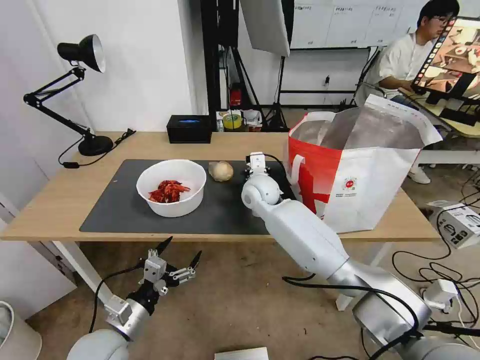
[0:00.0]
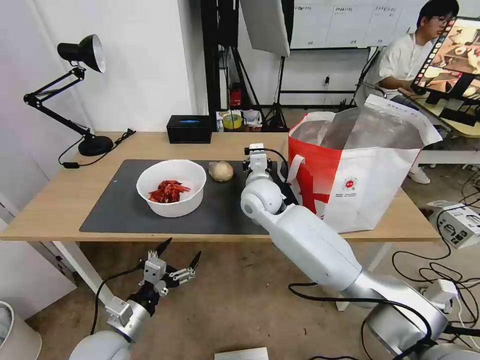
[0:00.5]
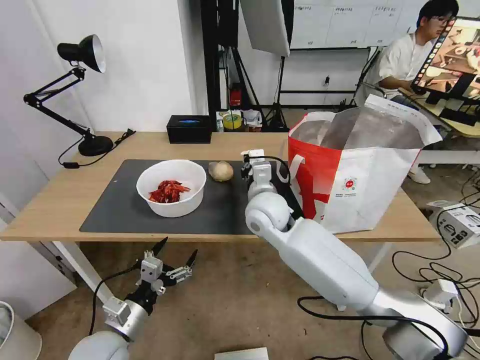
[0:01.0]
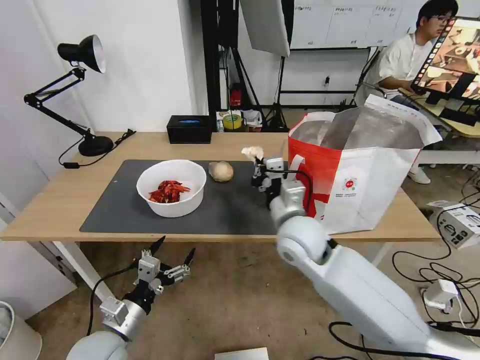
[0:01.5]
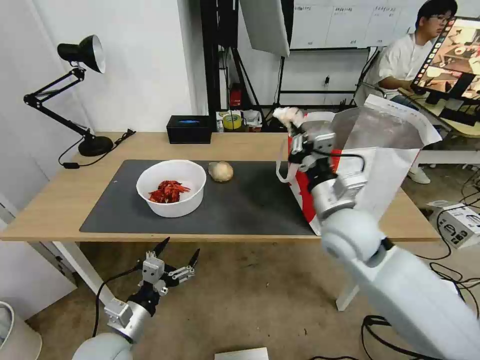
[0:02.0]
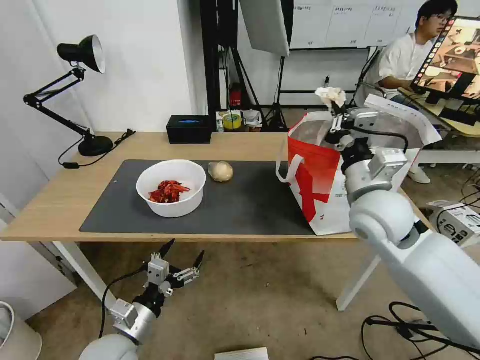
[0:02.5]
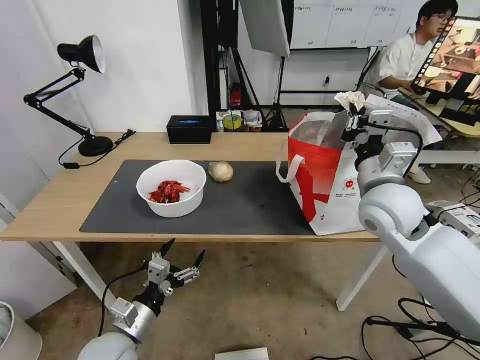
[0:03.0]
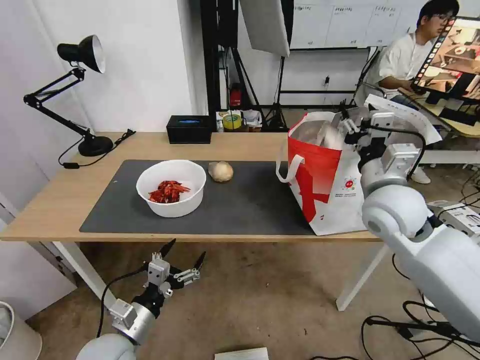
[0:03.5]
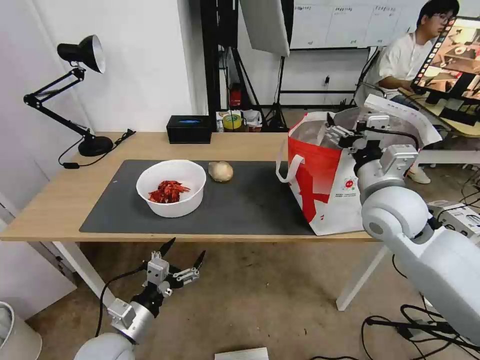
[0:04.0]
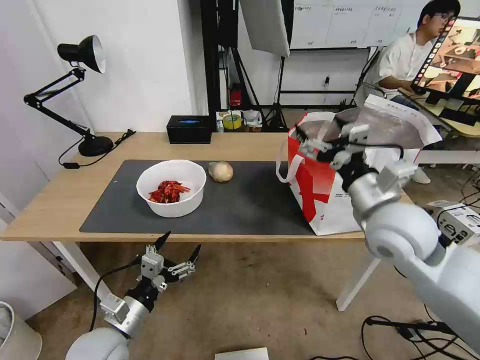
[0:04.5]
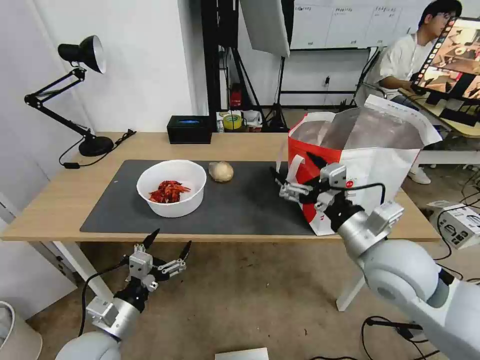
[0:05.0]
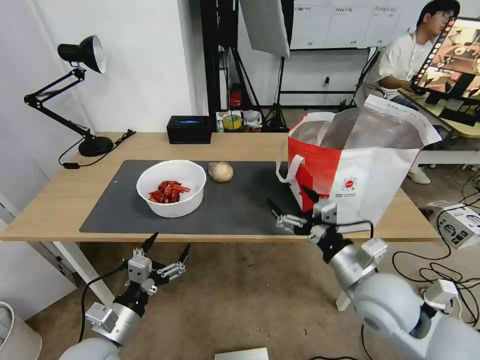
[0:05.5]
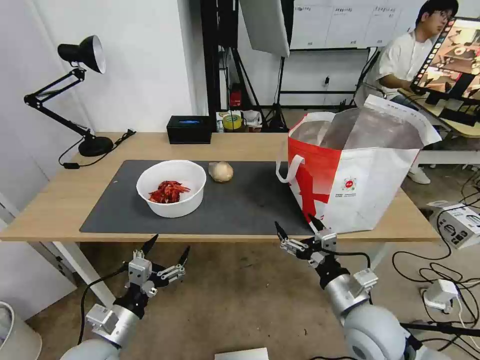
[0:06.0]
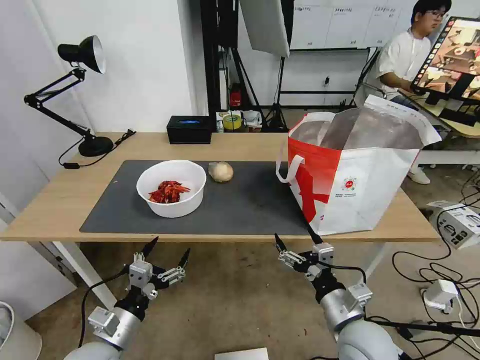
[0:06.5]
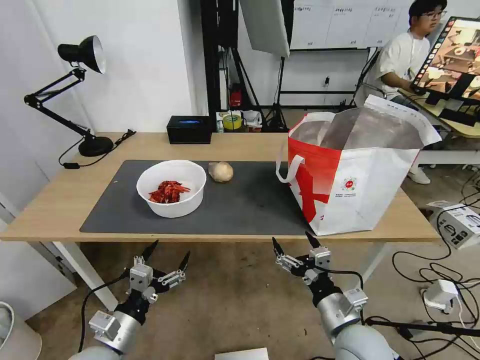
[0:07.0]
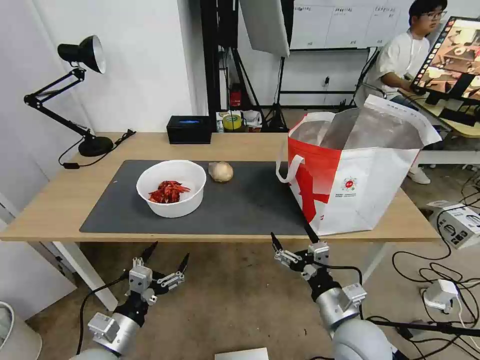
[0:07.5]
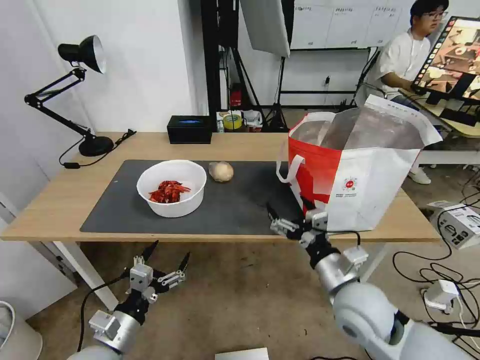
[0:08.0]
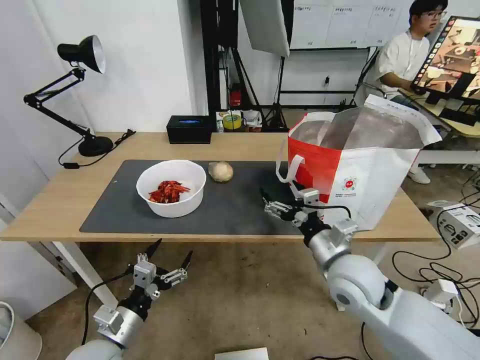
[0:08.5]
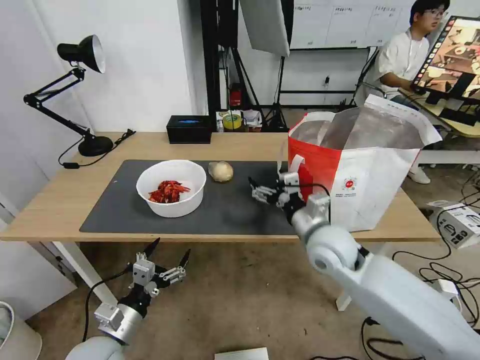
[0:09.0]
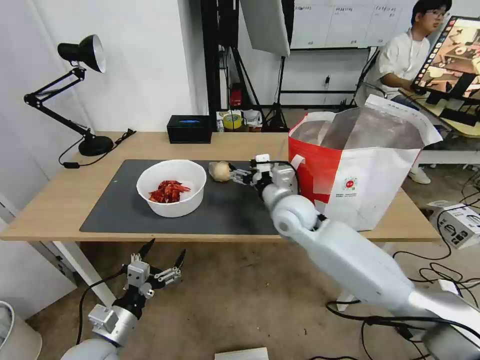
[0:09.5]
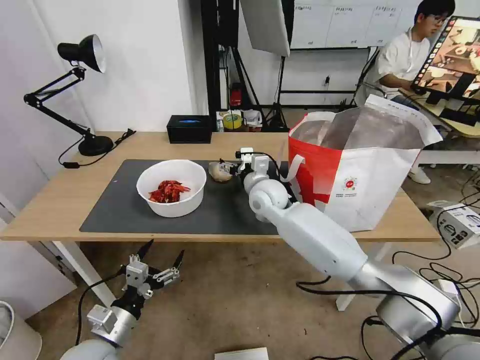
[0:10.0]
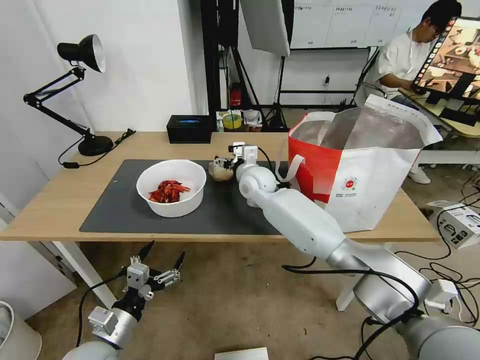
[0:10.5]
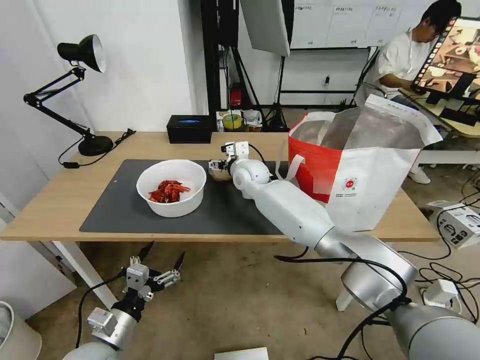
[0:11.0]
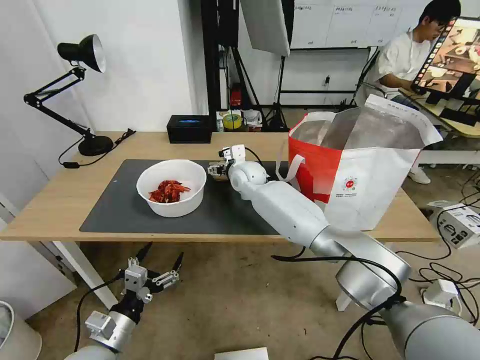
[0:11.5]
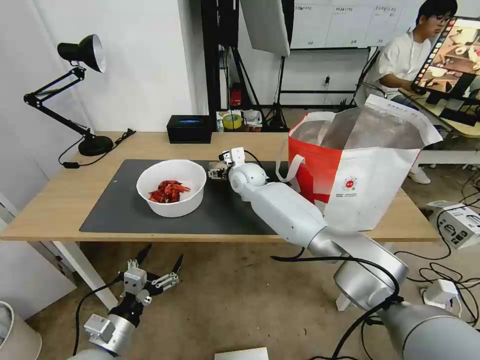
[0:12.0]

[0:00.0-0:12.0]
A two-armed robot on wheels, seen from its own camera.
Task of the whole recording: Pick up the trash from the table and place it into the takeout bag.
0:00.0 to 0:02.0: The right gripper is displaced backward and to the right by approximately 20 cm.
0:02.0 to 0:04.0: The right gripper is displaced to the right by about 10 cm, and opens up.
0:04.0 to 0:06.0: The right gripper travels downward and backward by some 25 cm.
0:06.0 to 0:08.0: The grippers stay close to where they were, moving slightly.
0:08.0 to 0:10.0: The right gripper goes some 30 cm forward and to the left.
0:10.0 to 0:12.0: The right gripper is displaced forward by about 10 cm.

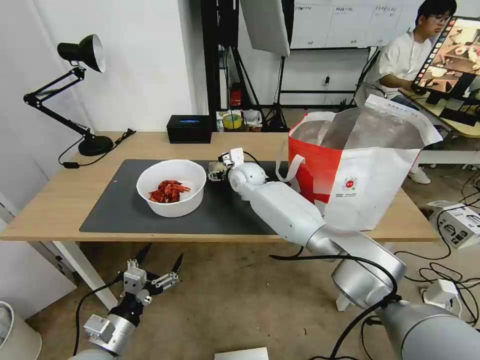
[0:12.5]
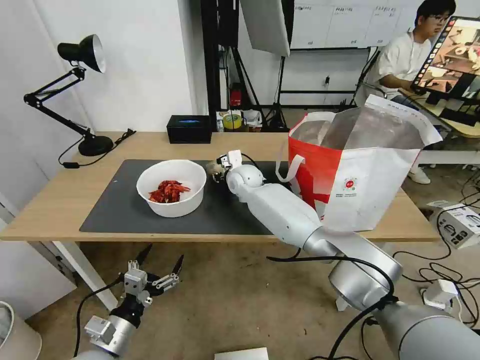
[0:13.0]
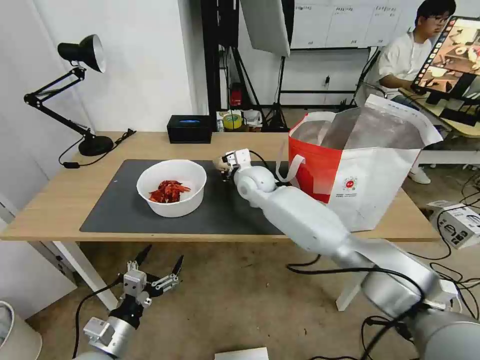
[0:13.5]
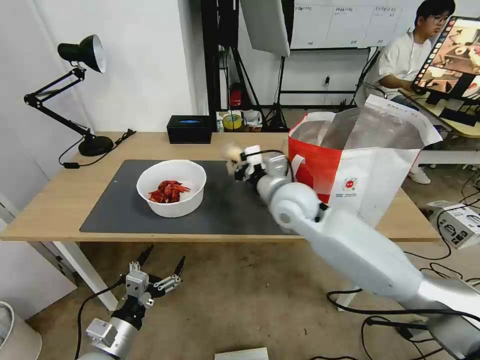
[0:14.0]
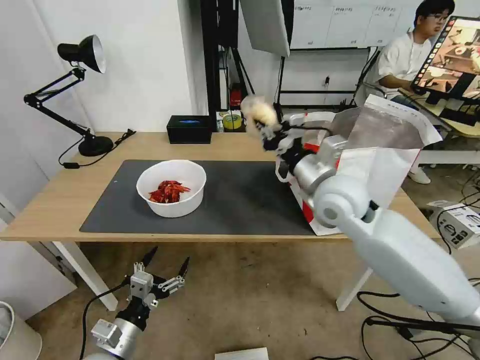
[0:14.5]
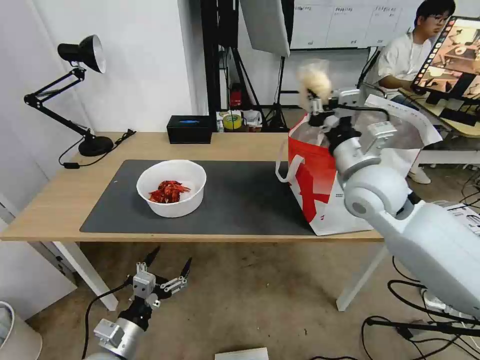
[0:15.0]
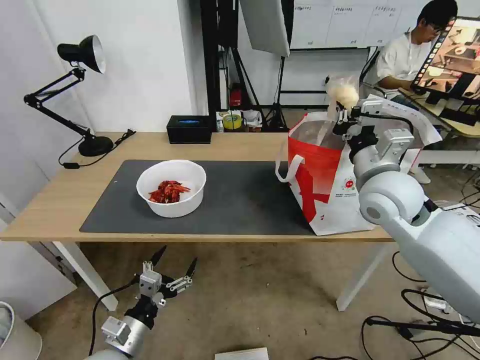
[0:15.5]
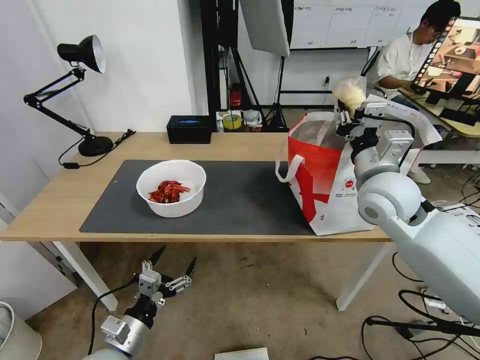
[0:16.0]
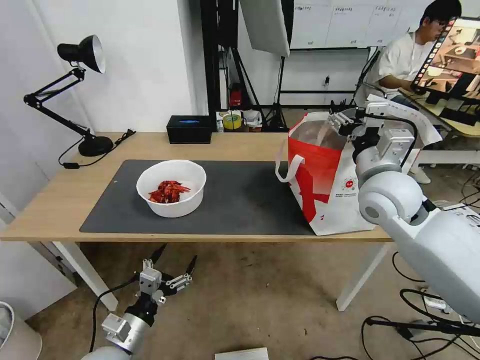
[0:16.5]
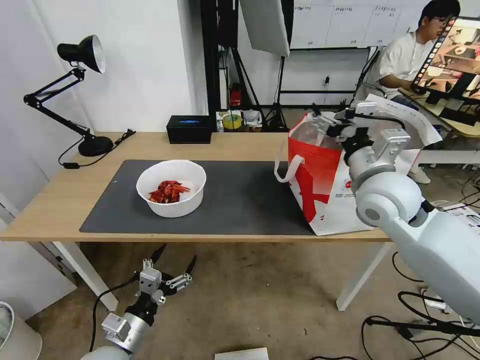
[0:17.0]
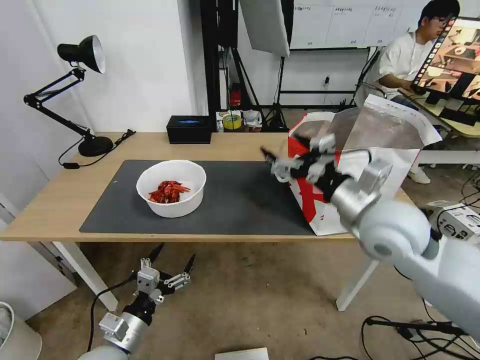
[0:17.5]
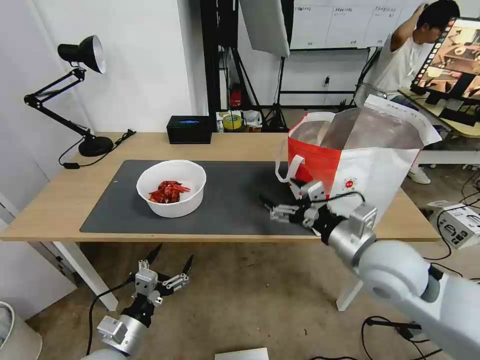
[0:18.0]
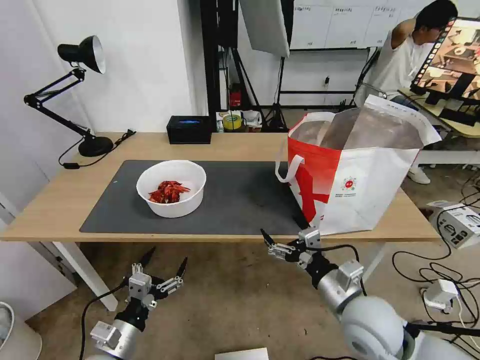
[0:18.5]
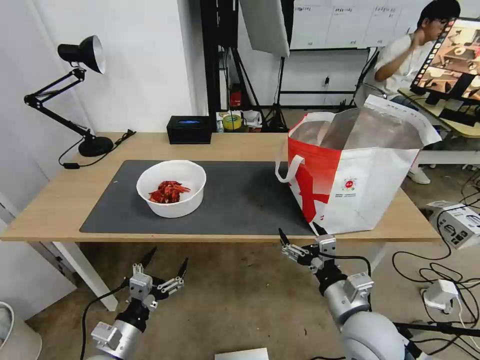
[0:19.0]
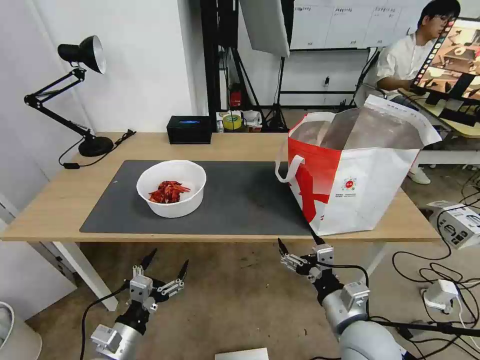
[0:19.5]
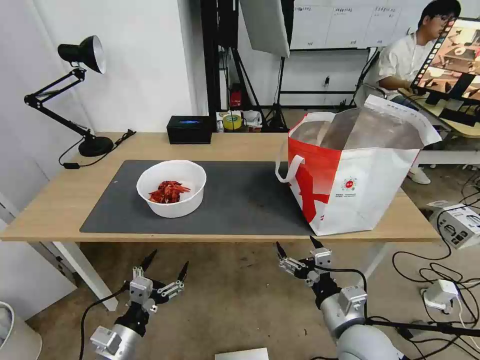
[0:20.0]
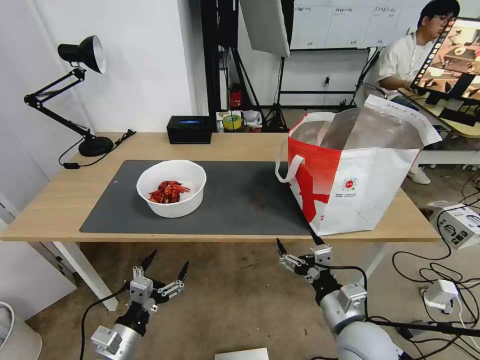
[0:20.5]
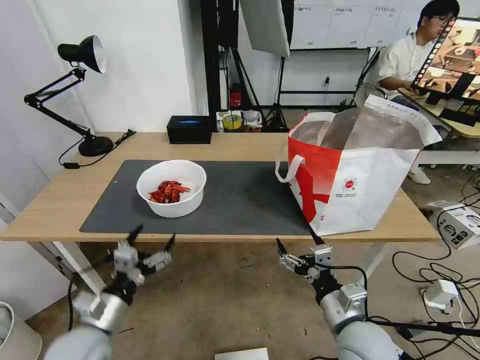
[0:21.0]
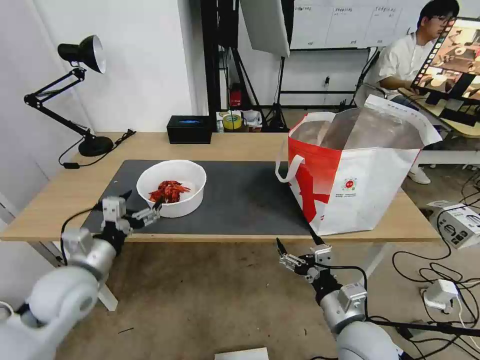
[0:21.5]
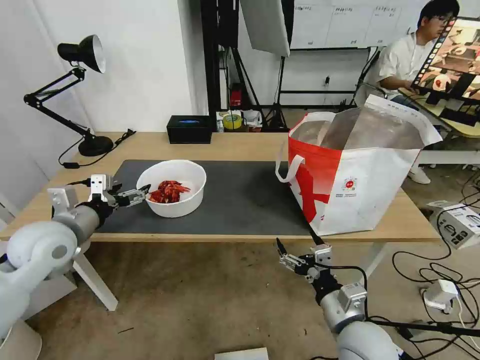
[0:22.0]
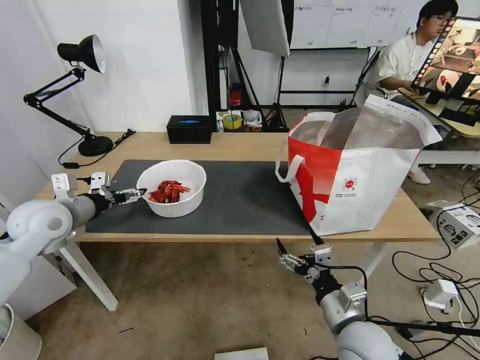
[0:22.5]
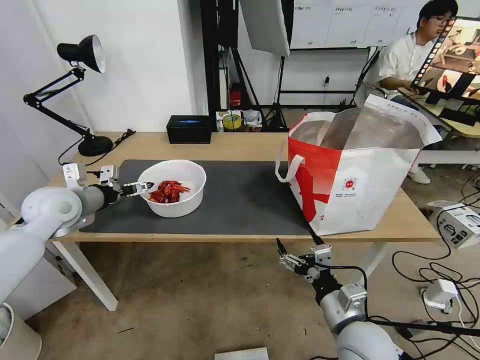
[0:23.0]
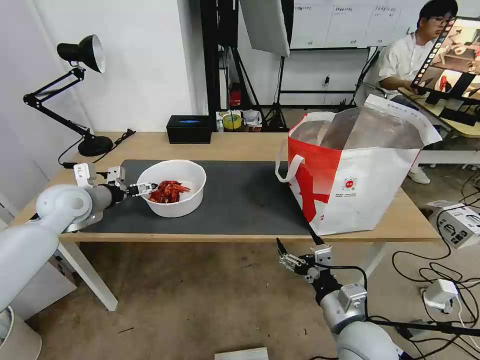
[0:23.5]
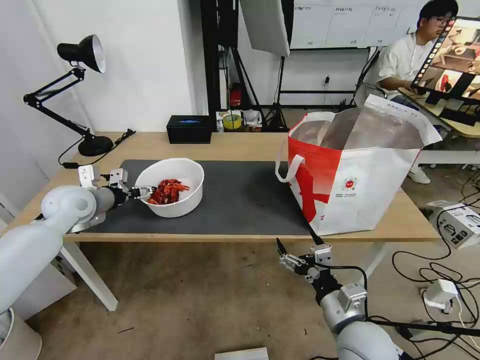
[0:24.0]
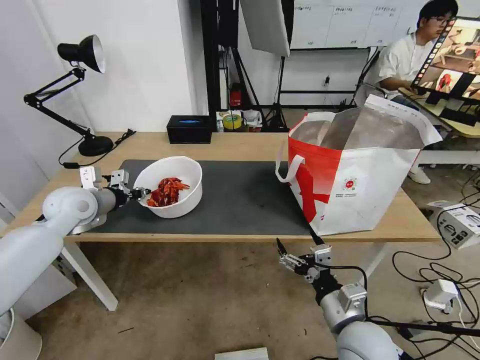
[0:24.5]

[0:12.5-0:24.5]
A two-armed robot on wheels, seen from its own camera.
Task of the whole recording: Pick up the trash from the table and place it into the takeout bag.
0:12.5 to 0:14.5: The right gripper shifts some 25 cm backward, to the right and upward, and closes up.
0:14.5 to 0:16.5: The right gripper shifts about 10 cm to the right, and opens up.
0:16.5 to 0:18.5: The right gripper heads backward and downward, covering approximately 25 cm.
0:18.5 to 0:20.5: The right gripper shifts by some 5 cm.
0:20.5 to 0:22.5: The left gripper heads forward, upward and to the left, covering roughly 35 cm.
0:22.5 to 0:24.5: The left gripper goes approximately 5 cm forward, and closes its fingers.

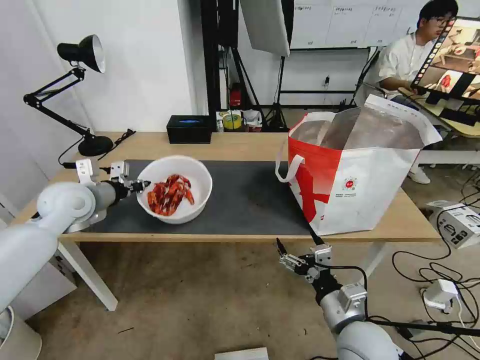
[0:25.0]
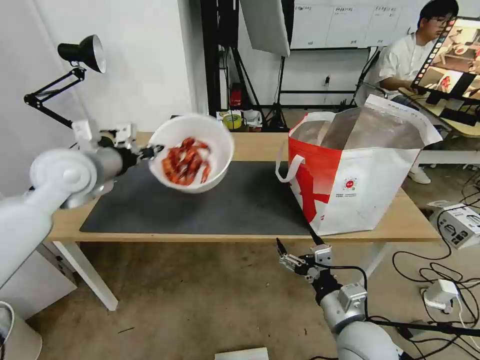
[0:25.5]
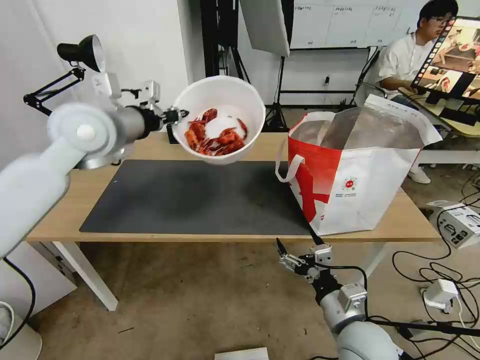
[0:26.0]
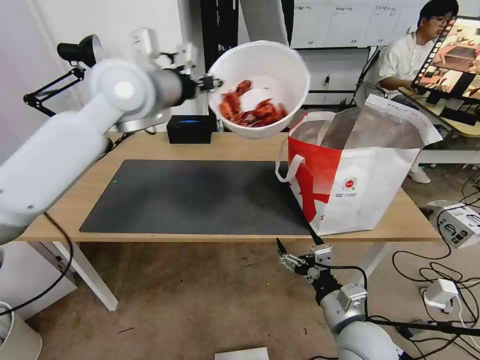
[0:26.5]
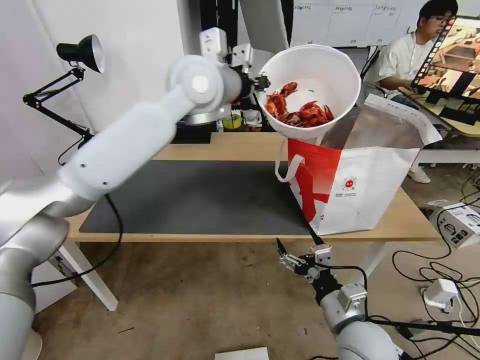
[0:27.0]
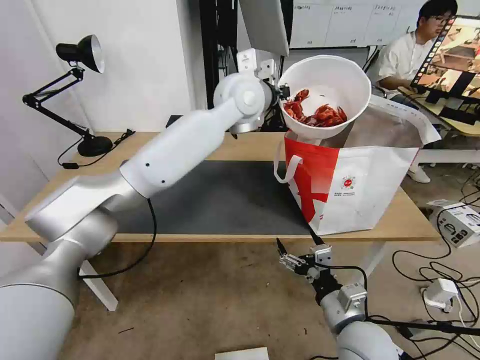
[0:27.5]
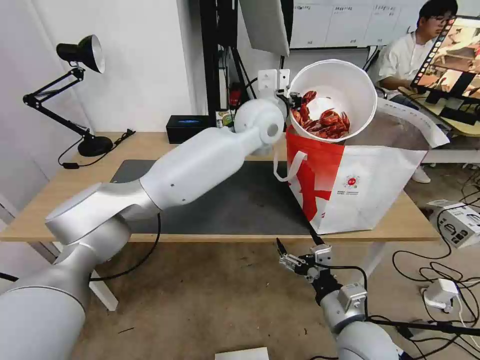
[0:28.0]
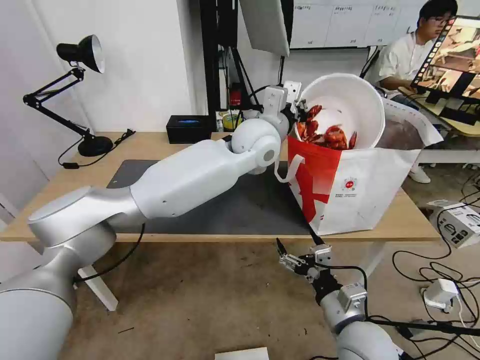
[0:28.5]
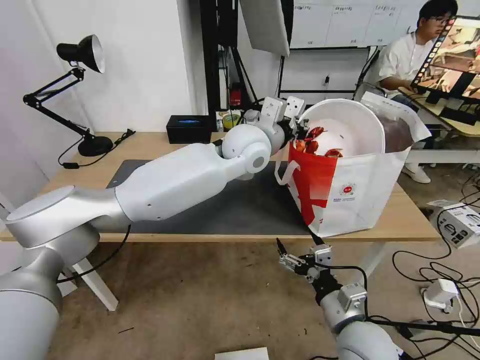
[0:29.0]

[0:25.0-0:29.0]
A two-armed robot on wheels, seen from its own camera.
Task of the whole recording: Pick up the trash from the table and place it into the takeout bag.
0:25.0 to 0:27.0: The left gripper heads to the right and upward, covering approximately 35 cm.
0:27.0 to 0:29.0: The left gripper moves downward and to the right, approximately 15 cm.
